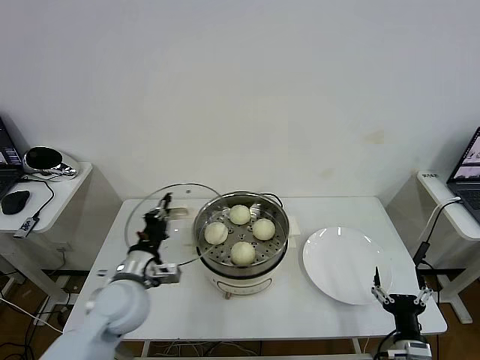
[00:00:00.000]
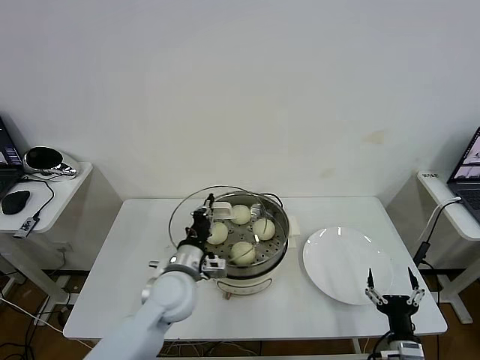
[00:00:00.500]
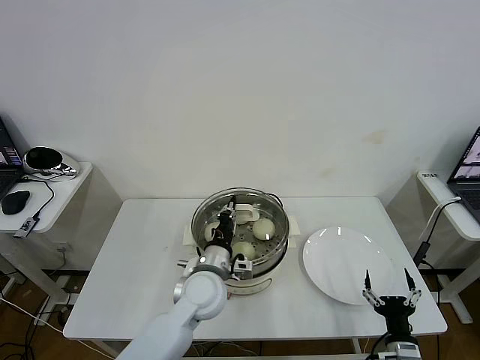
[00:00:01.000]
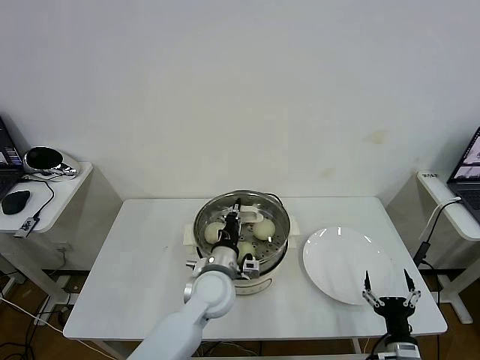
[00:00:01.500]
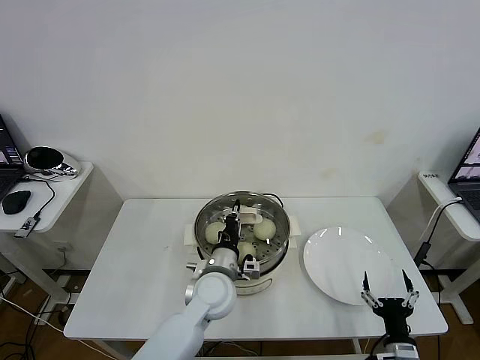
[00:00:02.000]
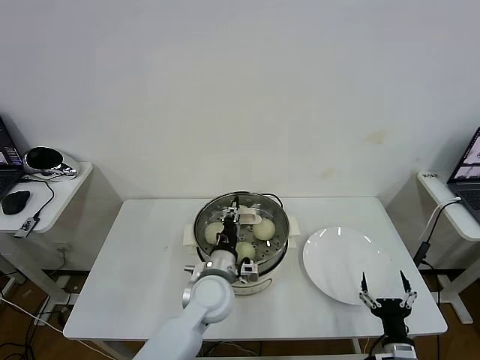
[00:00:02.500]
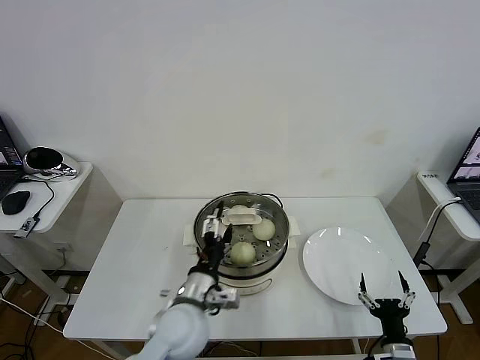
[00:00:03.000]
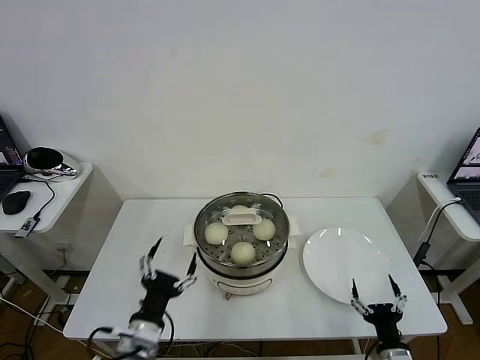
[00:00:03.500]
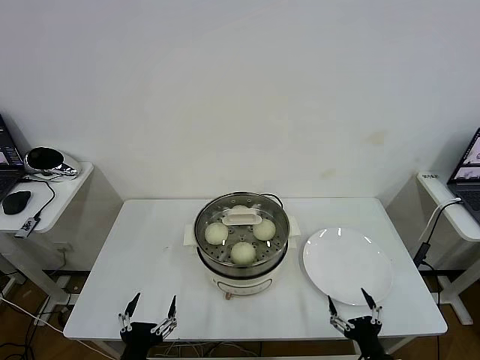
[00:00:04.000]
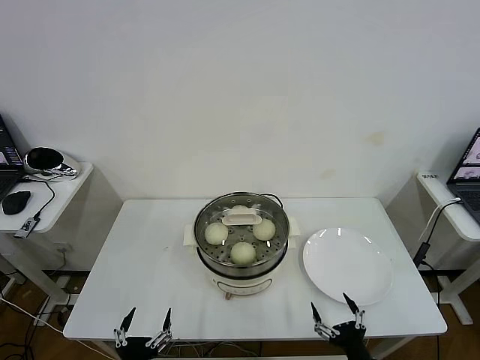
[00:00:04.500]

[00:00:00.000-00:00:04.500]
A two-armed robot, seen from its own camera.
Task of the whole recording: take steamed baozi put them in steamer then cover it.
Step, 00:00:00.000 to 00:00:03.000: Place the pot lid on the steamer with left gripper.
00:00:00.000 to 00:00:02.000: The left gripper is displaced to the right by some 15 cm.
00:00:02.000 to 00:00:04.500: The right gripper travels to the left by some 5 cm; the left gripper travels backward and to the left by roughly 30 cm, and opens up.
